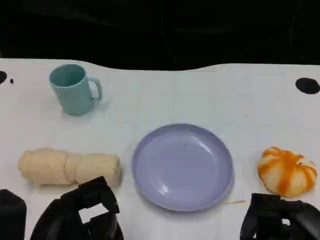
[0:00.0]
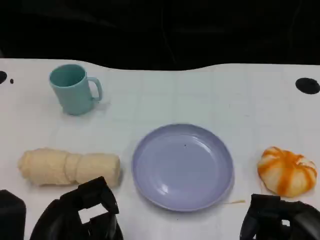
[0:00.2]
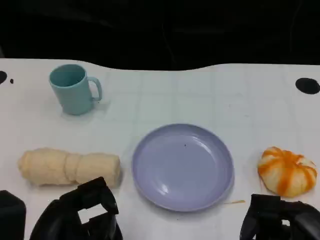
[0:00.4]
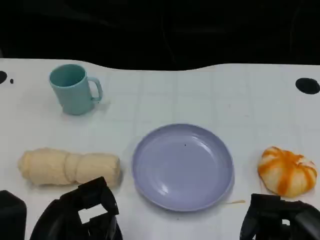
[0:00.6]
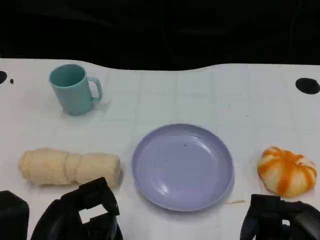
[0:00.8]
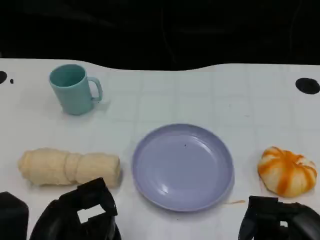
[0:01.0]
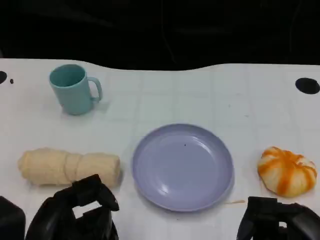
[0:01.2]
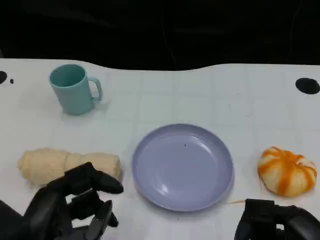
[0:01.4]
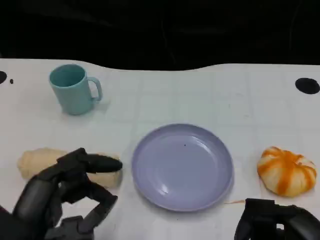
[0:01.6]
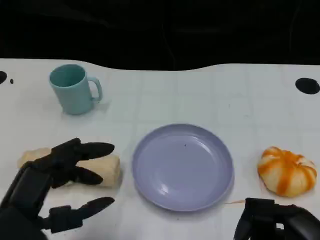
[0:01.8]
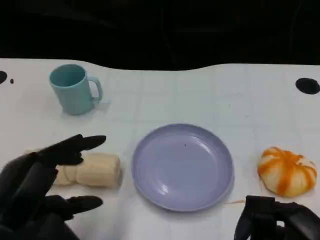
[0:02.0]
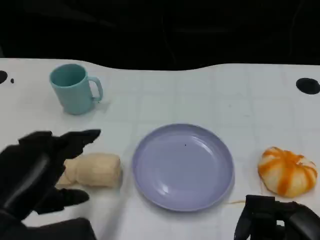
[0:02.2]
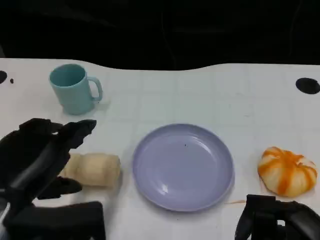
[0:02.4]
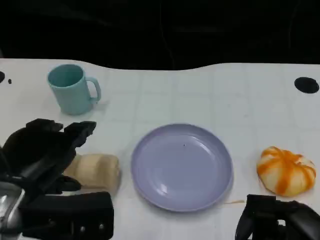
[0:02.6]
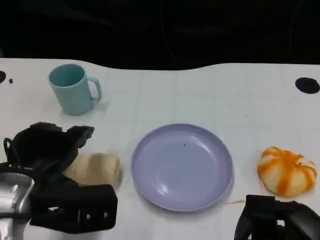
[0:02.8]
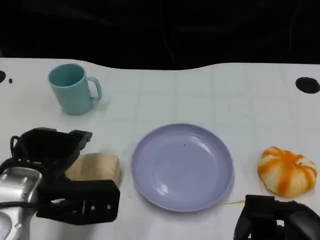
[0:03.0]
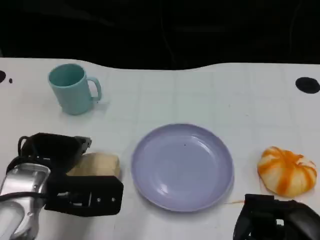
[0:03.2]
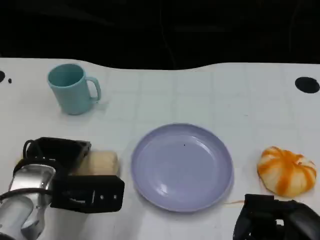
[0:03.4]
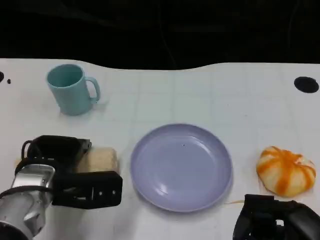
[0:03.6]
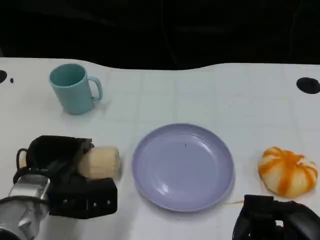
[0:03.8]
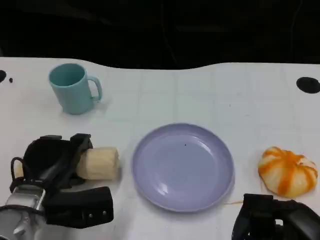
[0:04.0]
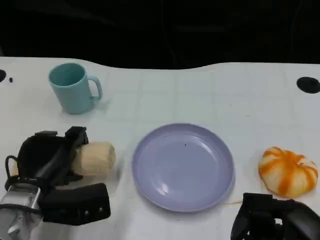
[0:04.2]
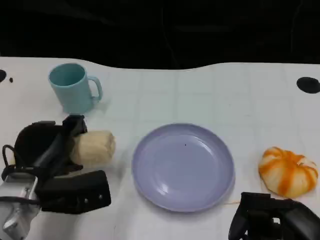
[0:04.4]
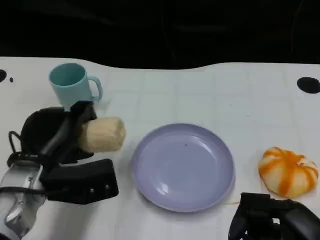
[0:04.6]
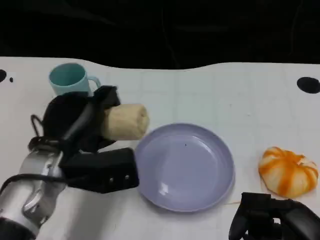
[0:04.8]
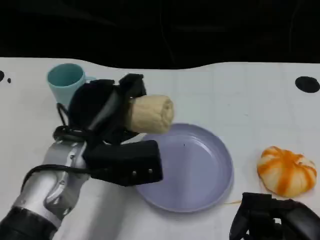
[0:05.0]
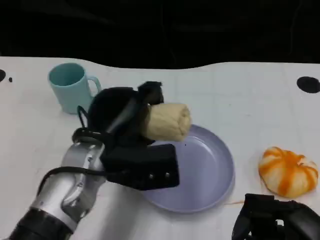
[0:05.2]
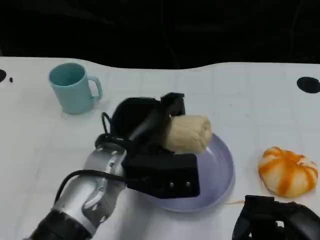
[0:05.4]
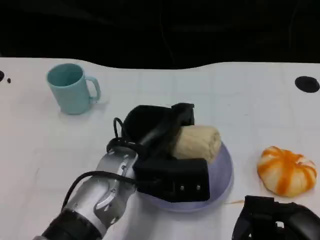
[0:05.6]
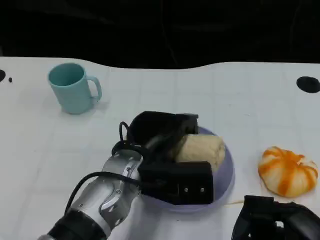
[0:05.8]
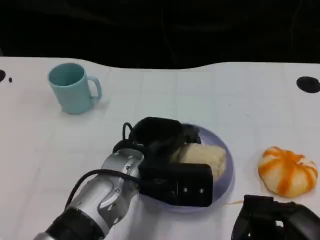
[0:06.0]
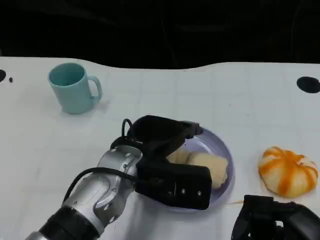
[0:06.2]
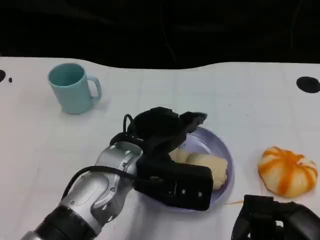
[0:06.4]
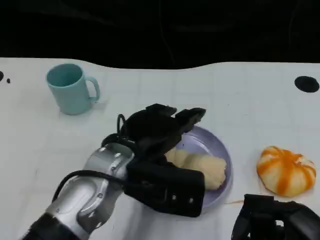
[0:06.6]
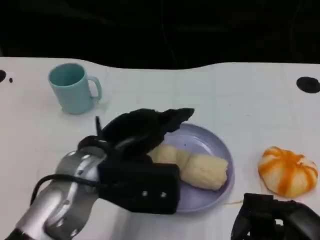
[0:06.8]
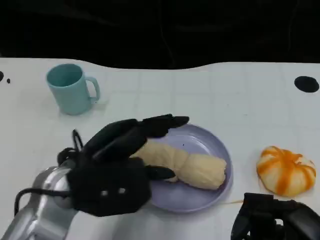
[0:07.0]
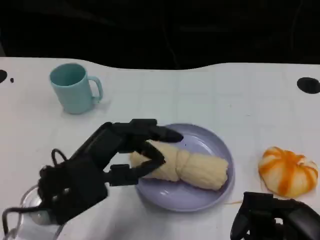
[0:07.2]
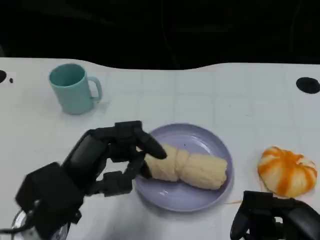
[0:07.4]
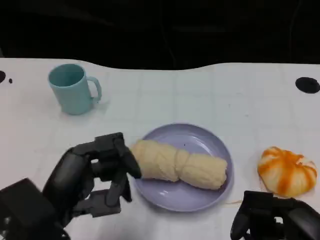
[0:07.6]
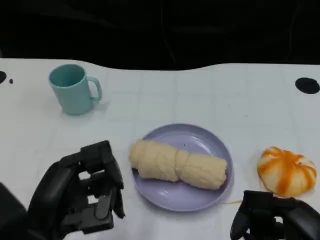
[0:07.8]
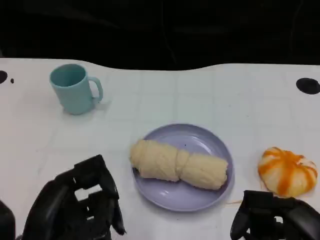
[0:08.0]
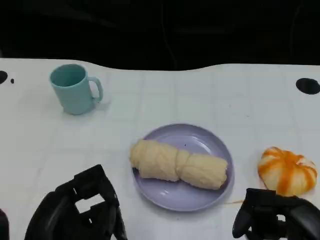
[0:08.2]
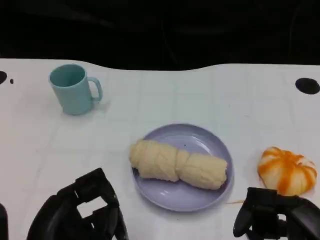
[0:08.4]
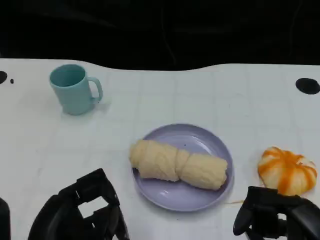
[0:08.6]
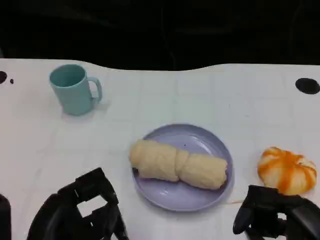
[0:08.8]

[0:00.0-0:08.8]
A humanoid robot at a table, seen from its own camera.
Task of the whole recording: Grasp the towel on the left side of the plate with the left hand and place it into the plate.
0:01.4 to 0:03.0: The left hand shifts roughly 10 cm forward.
0:04.4 to 0:05.8: The left hand shifts roughly 15 cm to the right.
0:05.8 to 0:07.4: The left hand shifts roughly 15 cm to the left and backward.
0:07.4 to 0:08.8: The left hand travels backward by about 5 cm.

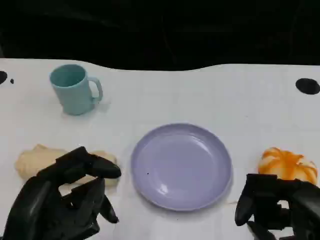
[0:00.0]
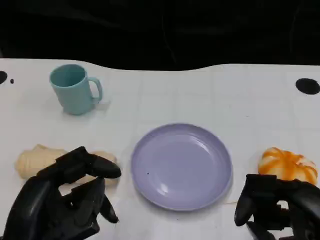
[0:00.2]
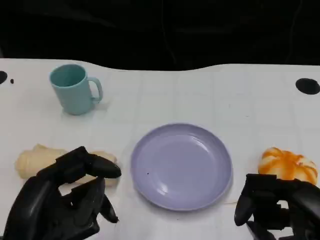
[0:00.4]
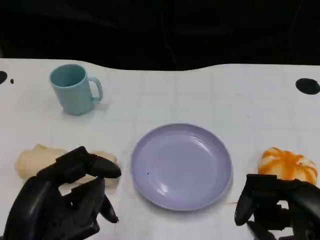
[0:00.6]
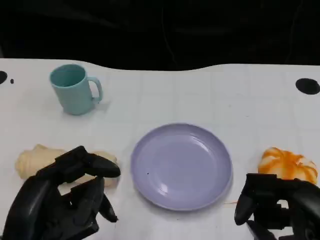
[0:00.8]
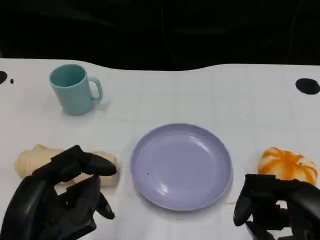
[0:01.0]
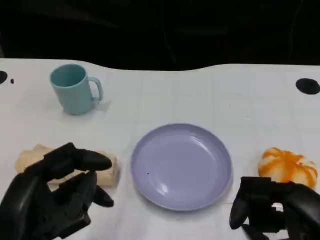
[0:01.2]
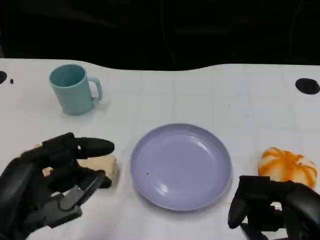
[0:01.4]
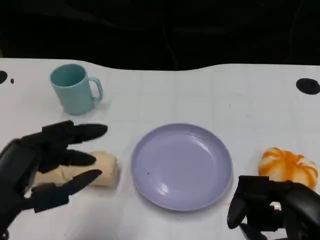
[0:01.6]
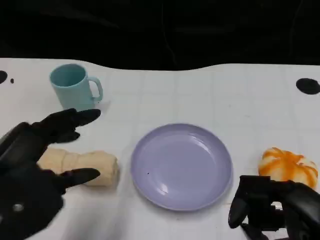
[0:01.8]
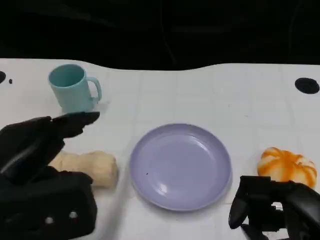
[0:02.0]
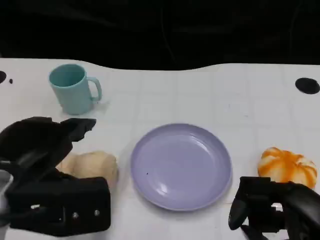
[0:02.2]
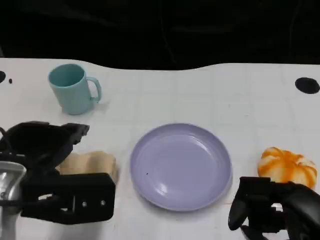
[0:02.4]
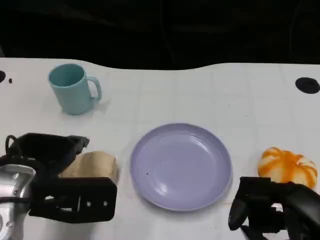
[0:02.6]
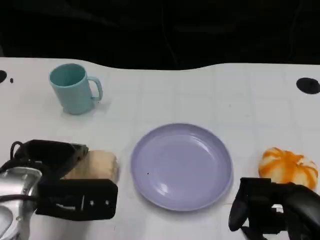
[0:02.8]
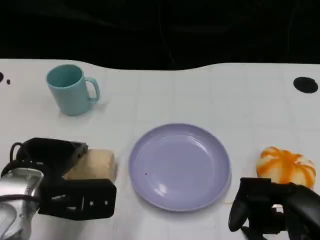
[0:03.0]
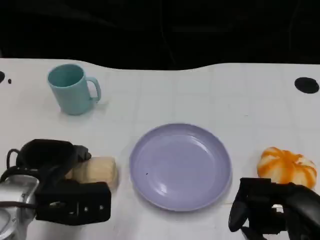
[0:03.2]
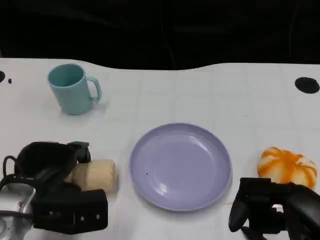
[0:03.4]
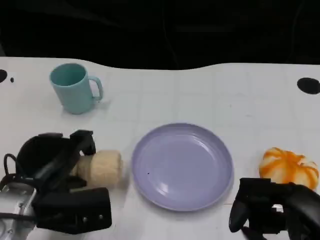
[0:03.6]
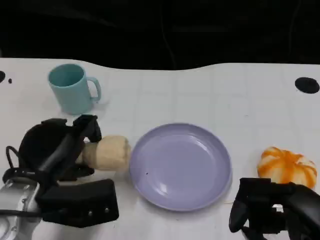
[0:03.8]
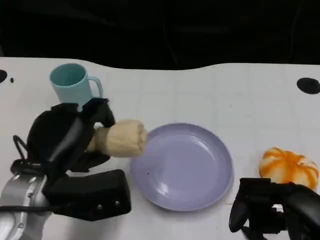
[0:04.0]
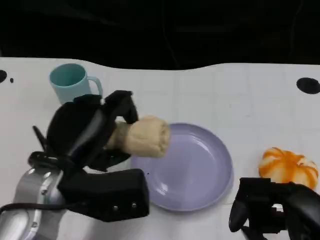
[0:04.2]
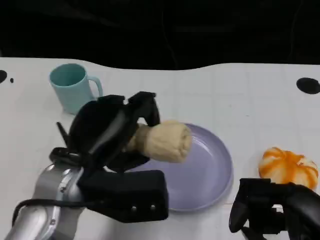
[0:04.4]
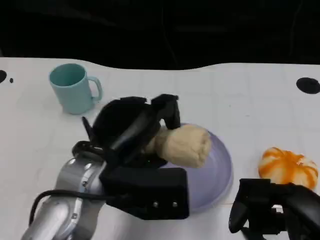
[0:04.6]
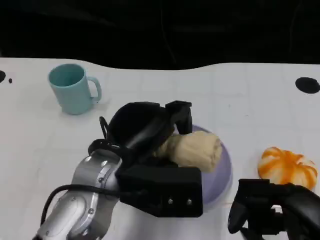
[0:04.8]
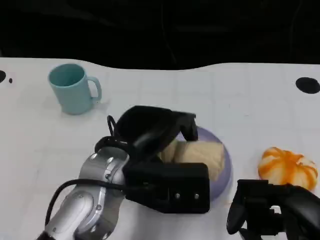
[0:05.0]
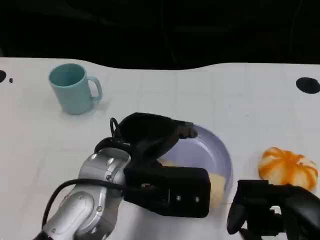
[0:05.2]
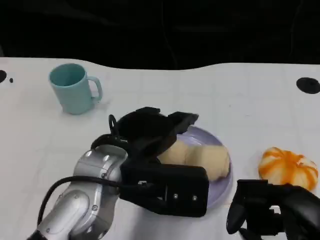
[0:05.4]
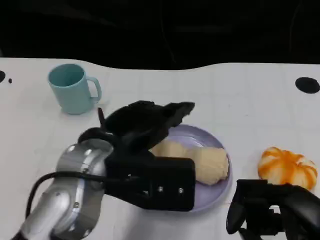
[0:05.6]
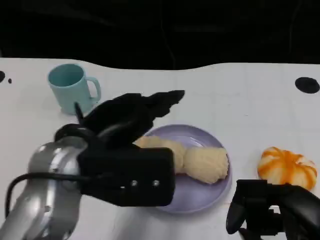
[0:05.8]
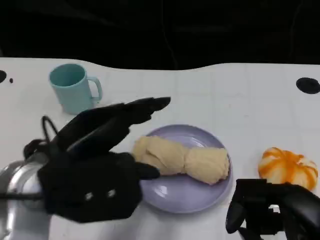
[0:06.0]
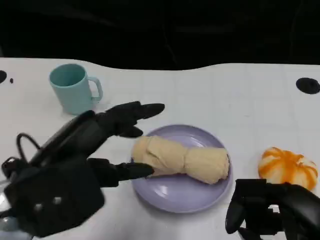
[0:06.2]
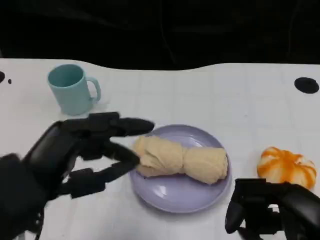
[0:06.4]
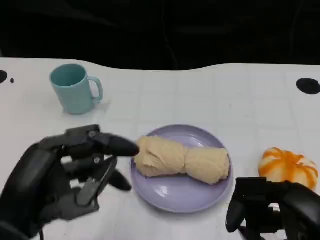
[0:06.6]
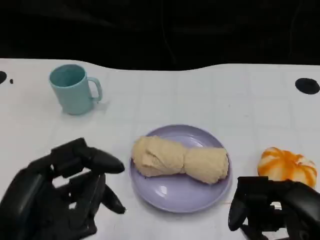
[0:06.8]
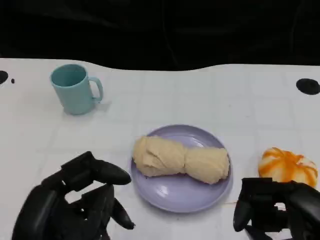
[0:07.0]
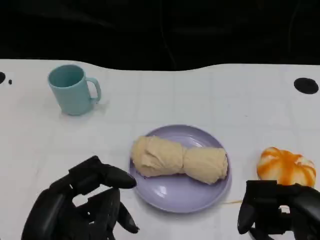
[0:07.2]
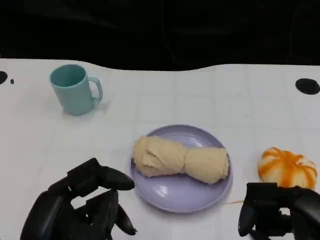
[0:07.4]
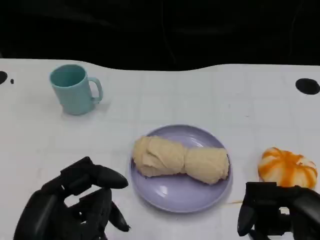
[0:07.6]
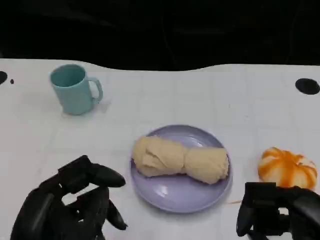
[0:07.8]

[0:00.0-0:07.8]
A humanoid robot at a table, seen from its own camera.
Task of the whole recording: Grasp the towel on the left side of the plate with the left hand and place it into the plate.
0:00.0 to 0:01.6: The left hand ends up roughly 5 cm from where it was.
0:01.6 to 0:03.2: The left hand heads downward and forward, covering some 15 cm.
0:03.2 to 0:04.6: The left hand travels to the right and upward by about 15 cm.
0:04.6 to 0:06.2: The left hand goes approximately 10 cm to the left and backward.
0:06.2 to 0:07.8: The left hand travels backward and downward by some 10 cm.

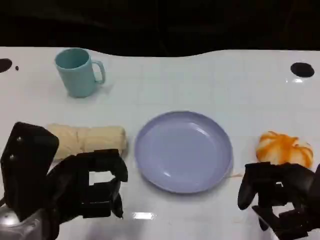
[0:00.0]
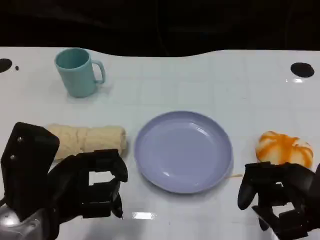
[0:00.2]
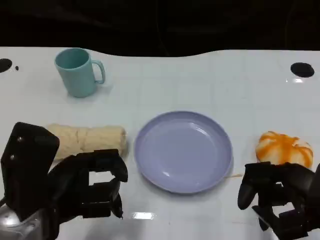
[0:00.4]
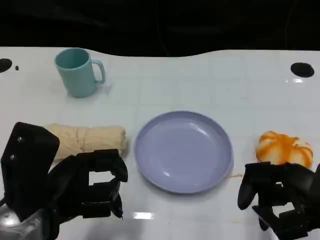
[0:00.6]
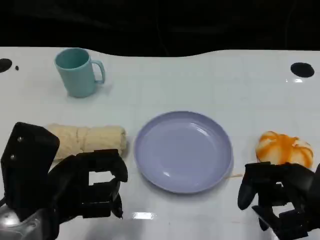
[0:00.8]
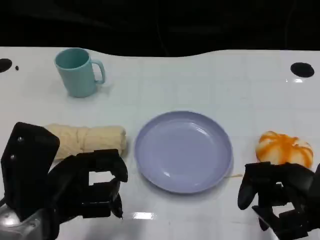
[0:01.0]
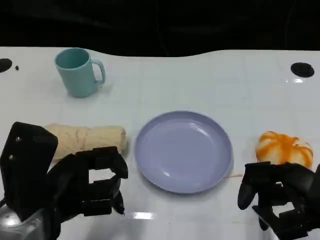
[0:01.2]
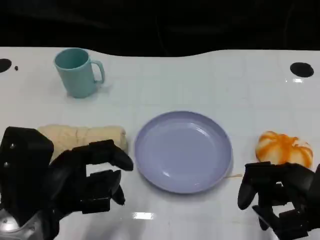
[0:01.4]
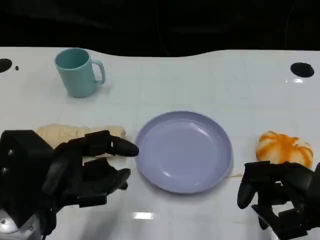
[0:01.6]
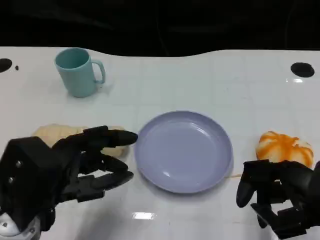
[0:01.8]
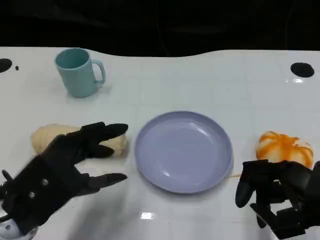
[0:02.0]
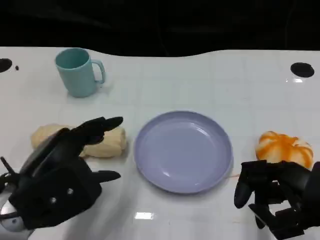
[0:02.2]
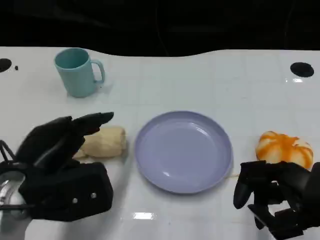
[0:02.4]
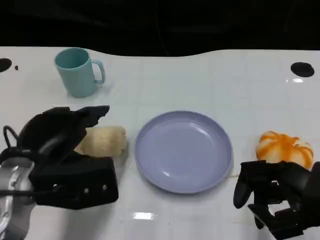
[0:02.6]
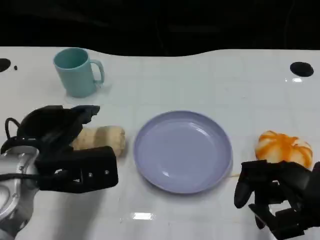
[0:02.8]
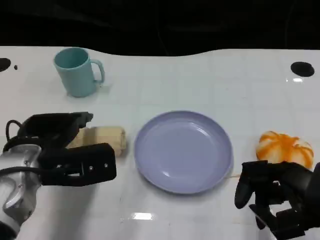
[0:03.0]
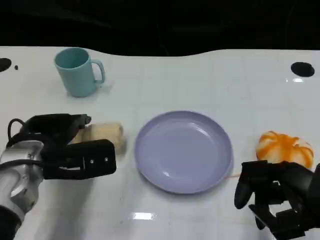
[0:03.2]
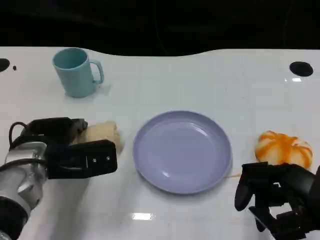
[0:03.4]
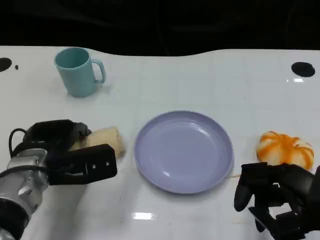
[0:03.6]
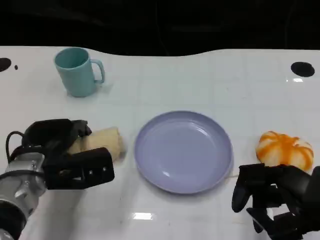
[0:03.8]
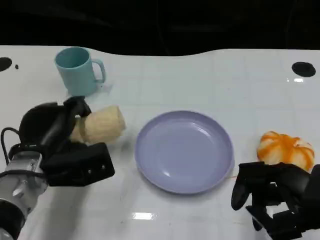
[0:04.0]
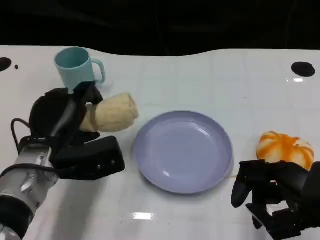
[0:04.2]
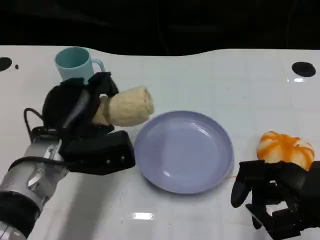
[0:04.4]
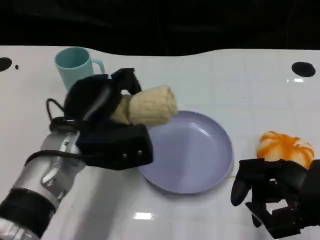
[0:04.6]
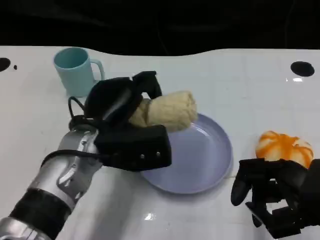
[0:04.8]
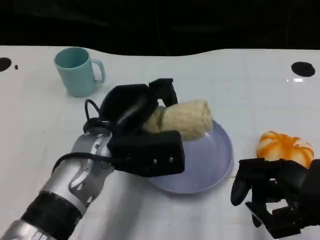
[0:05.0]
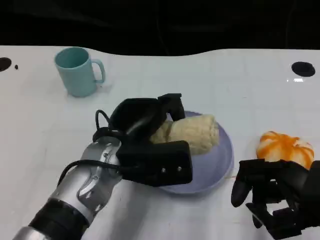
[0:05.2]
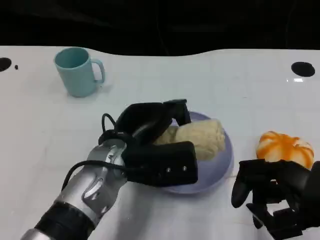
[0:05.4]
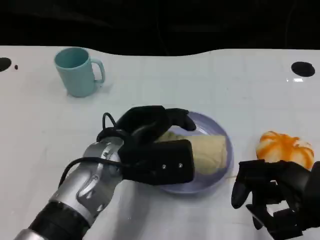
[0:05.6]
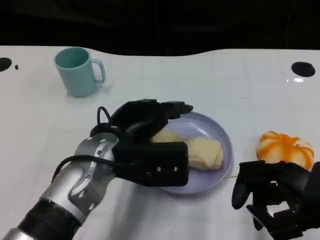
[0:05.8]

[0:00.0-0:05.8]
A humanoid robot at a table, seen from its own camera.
Task of the whole recording: Grasp the towel on the left side of the plate with the left hand and place it into the plate.
0:00.0 to 0:01.4: The hands move only a little.
0:01.4 to 0:02.8: The left hand is displaced forward by approximately 10 cm.
0:02.8 to 0:04.4: The left hand changes place by about 5 cm.
0:04.4 to 0:05.8: The left hand is displaced to the right by about 5 cm.
